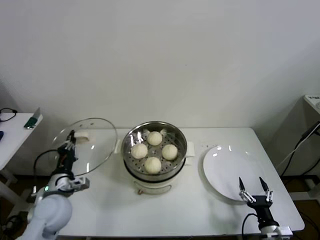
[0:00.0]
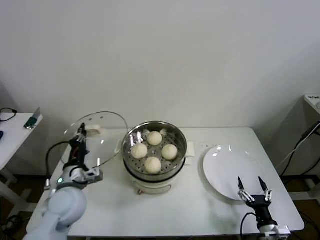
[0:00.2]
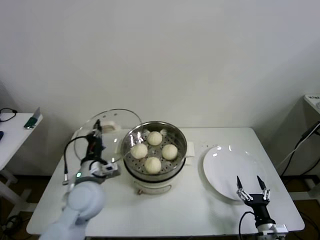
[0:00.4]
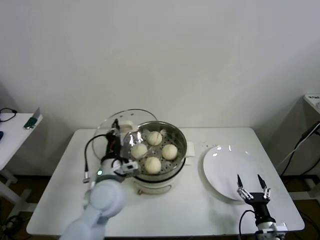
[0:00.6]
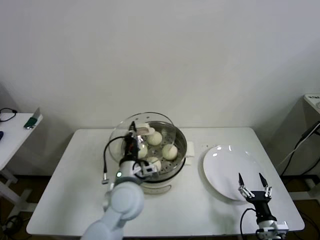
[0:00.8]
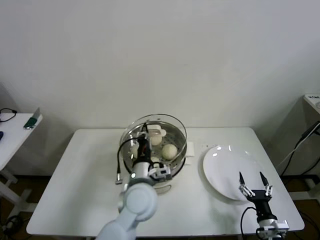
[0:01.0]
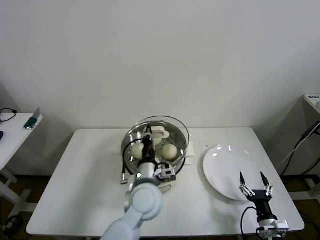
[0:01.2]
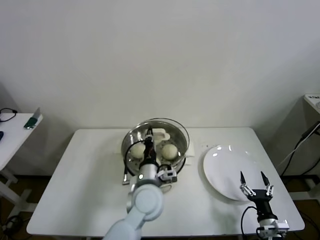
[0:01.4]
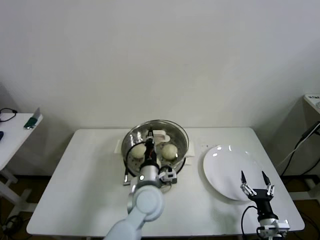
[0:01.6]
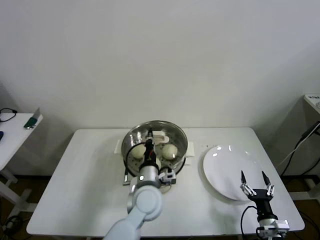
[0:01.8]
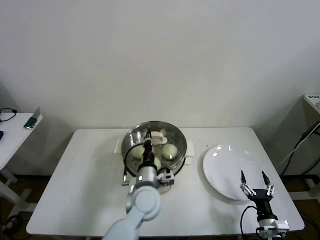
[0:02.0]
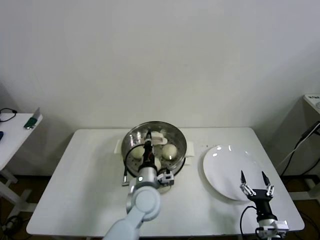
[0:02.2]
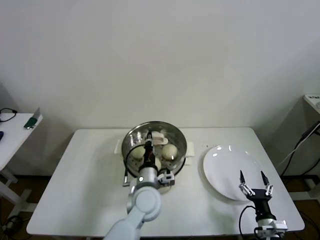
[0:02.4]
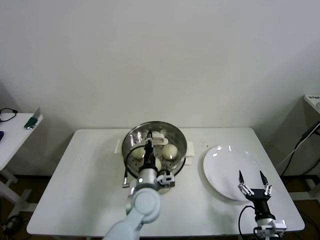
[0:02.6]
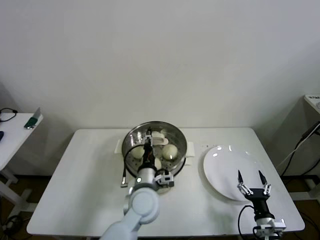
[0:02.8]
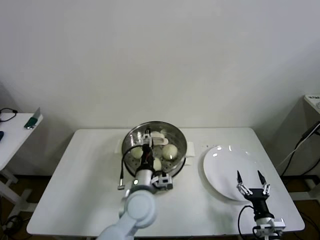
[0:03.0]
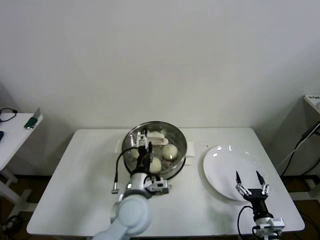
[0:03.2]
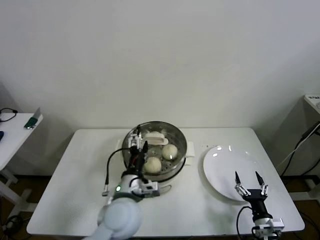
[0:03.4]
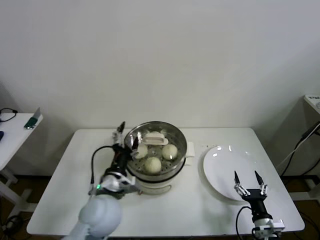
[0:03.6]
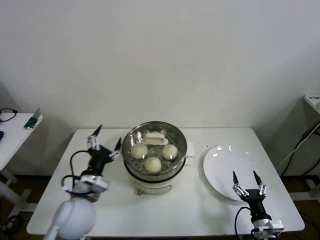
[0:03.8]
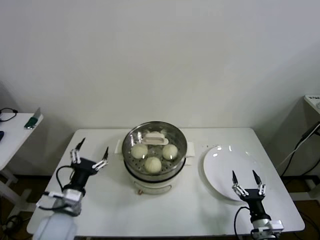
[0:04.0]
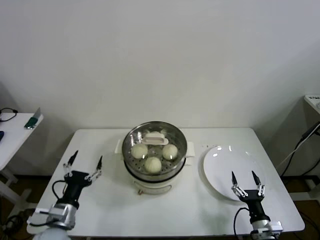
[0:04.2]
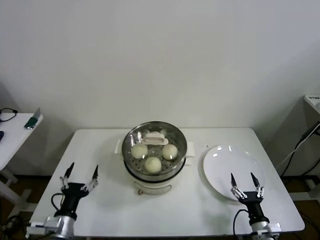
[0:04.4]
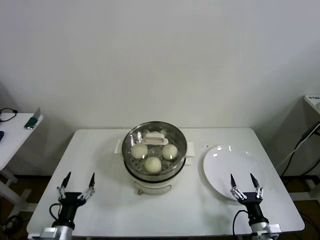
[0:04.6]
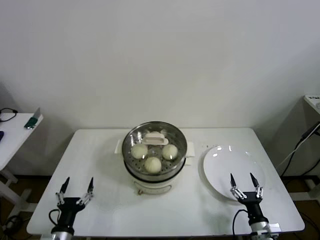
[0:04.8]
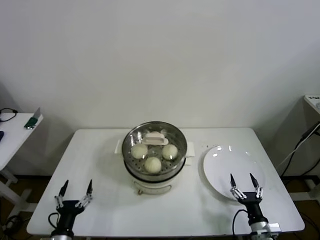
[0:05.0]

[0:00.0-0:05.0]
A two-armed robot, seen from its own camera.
Step, 0:00.0 to 0:02.4: Place the pot lid on the steamer with left gripper.
0:00.0 to 0:01.6: The left gripper shifts roughly 30 cm to the right.
0:01.6 to 0:03.4: The left gripper goes about 5 cm to the left, and opens up.
0:03.4 to 0:05.0: The left gripper is displaced to the left, downward and backward by some 30 cm.

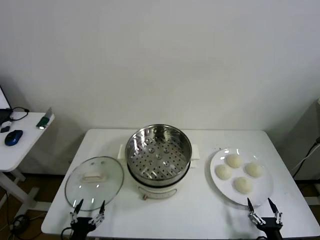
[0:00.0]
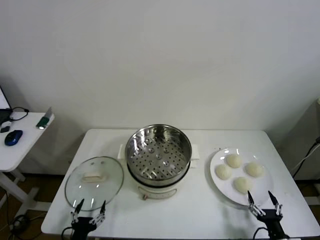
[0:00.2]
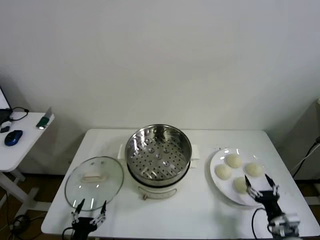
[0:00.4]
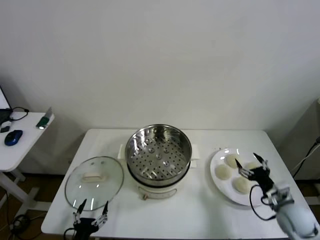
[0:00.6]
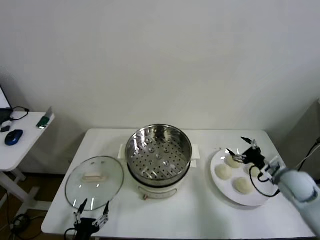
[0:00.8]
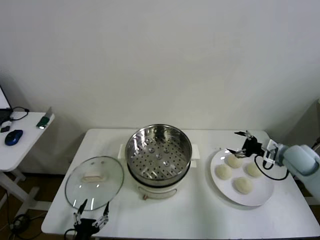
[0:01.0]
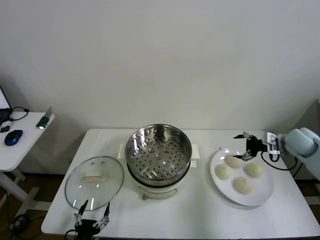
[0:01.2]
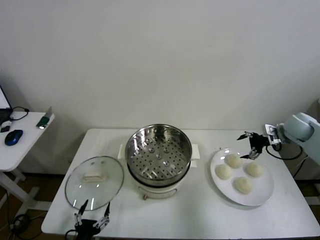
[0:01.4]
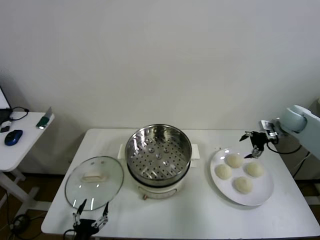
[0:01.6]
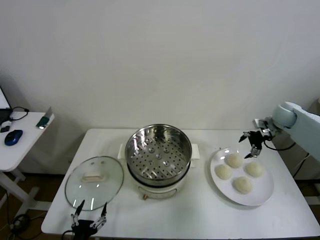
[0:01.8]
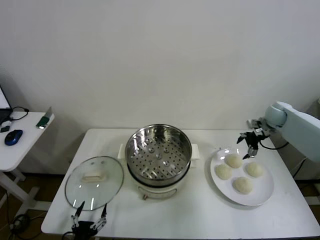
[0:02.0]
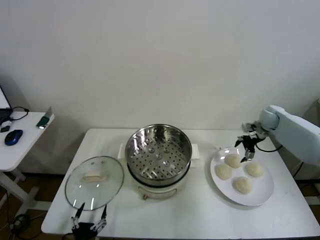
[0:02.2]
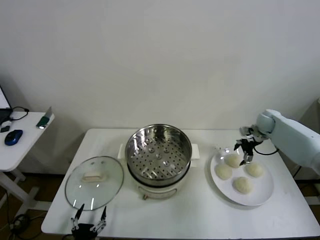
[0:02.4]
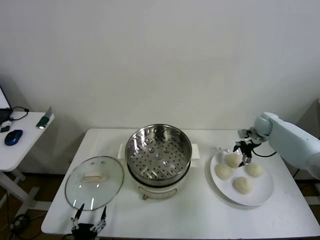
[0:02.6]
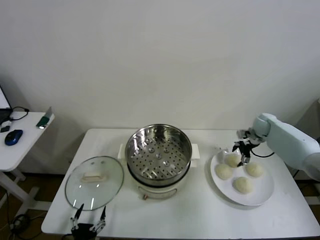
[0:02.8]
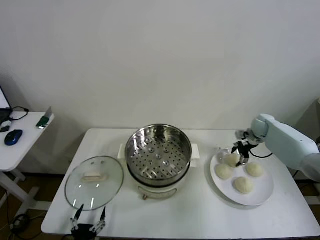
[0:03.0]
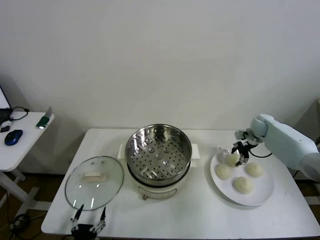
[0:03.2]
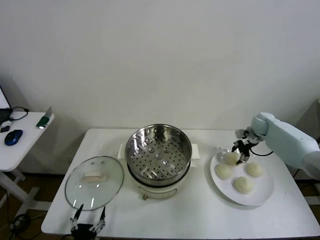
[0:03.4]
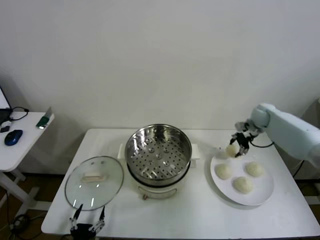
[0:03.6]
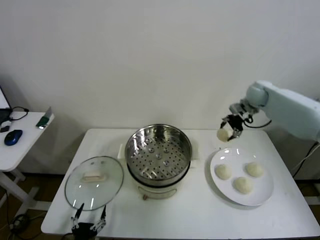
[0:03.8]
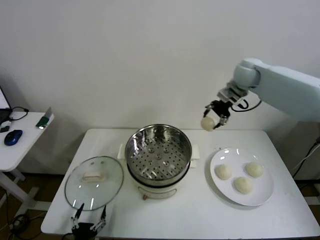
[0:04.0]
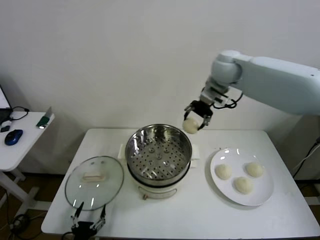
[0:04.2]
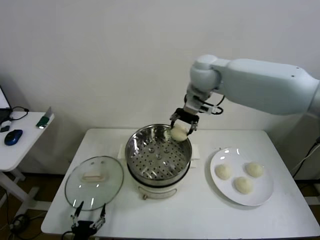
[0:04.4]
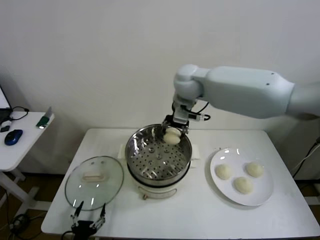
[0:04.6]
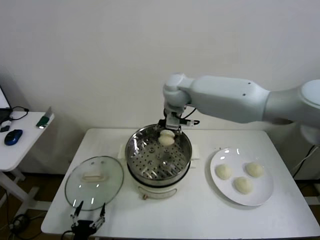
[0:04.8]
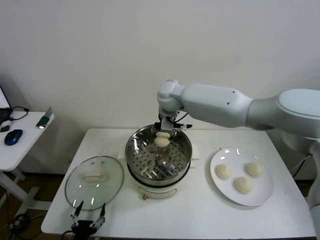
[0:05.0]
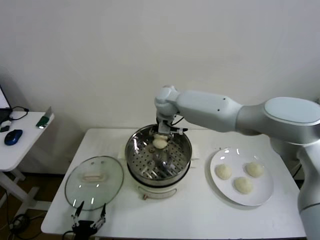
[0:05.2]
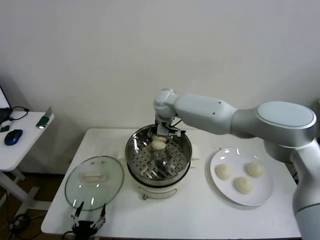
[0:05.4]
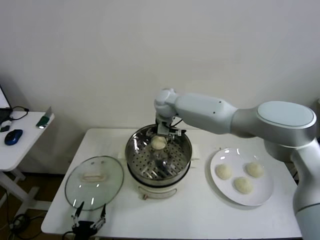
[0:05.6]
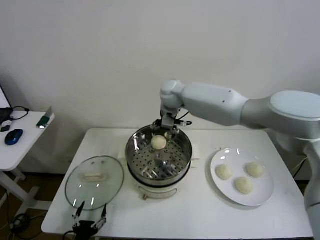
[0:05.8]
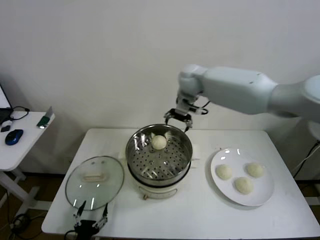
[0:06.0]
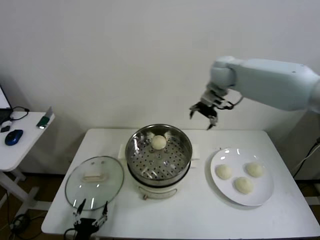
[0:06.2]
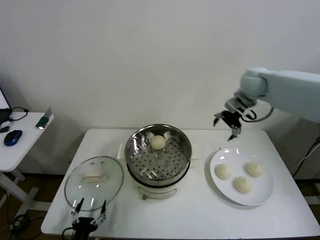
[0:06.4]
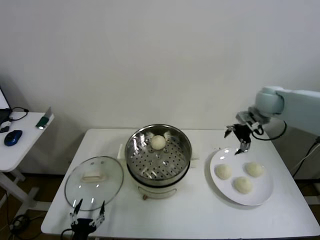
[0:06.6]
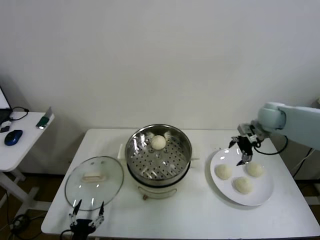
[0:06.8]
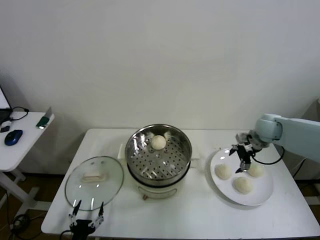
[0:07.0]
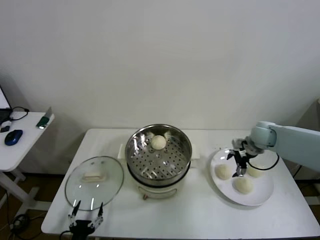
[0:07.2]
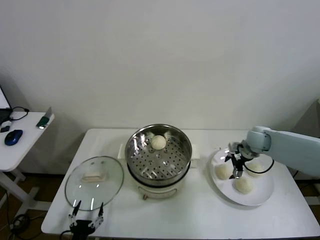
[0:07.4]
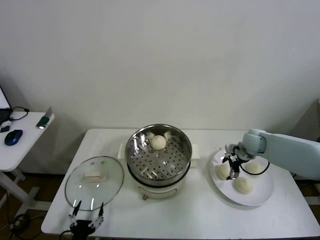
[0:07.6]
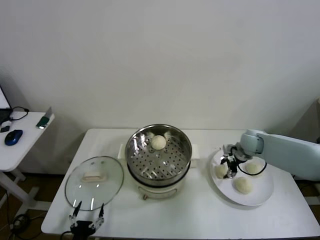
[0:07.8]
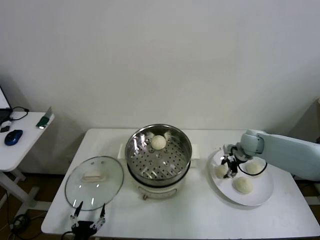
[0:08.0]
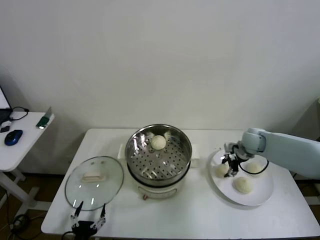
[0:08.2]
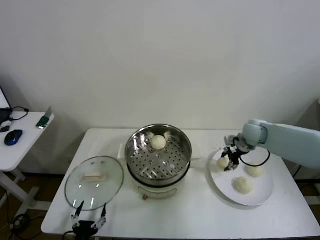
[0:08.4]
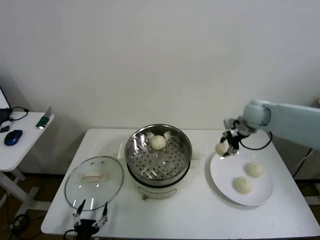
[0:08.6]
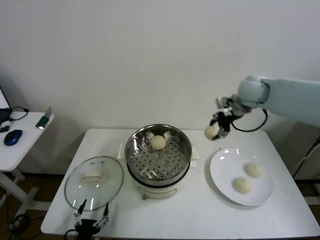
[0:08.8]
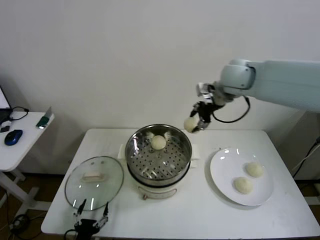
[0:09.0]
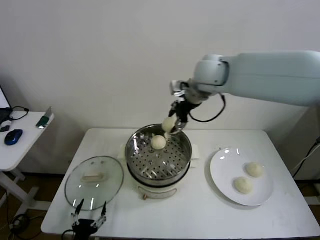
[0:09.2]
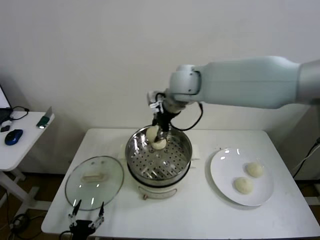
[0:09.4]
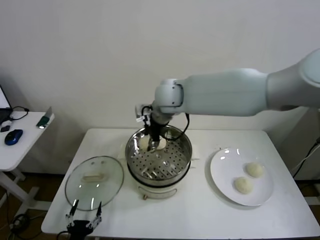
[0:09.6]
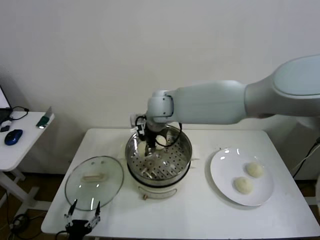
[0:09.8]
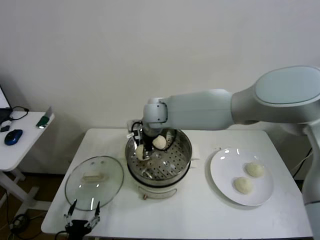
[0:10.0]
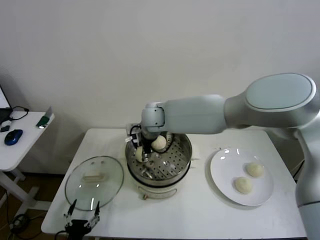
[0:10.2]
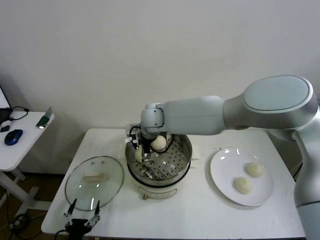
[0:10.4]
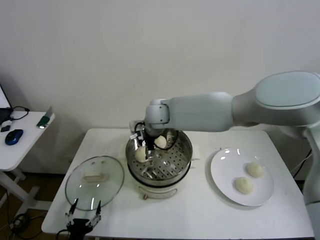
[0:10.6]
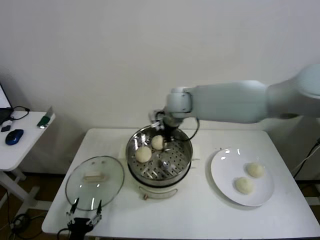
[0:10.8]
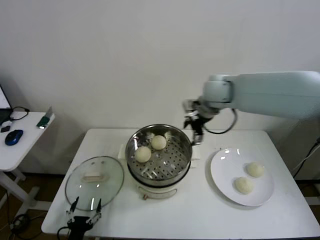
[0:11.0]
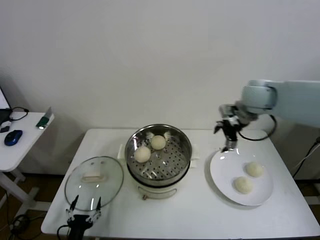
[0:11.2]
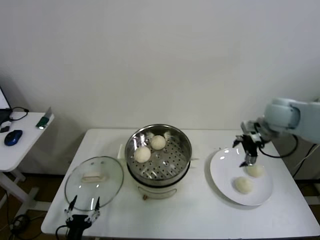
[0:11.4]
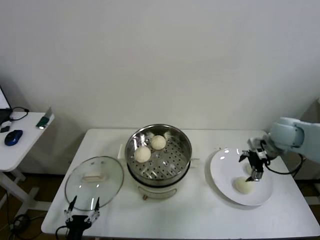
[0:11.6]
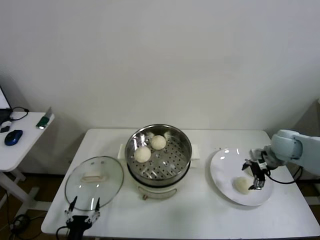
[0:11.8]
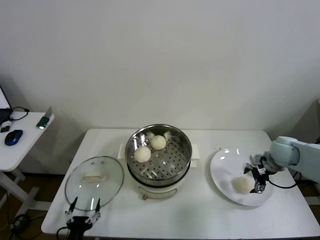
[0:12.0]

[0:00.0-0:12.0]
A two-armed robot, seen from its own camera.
Step, 0:00.0 to 0:03.0: Grasp the baozi in the plate with right gripper.
Step, 0:03.2 to 0:05.6: Place the baozi on the steamer with right gripper.
Step, 0:05.8 to 0:07.6: Grasp the baozi in the plate with right gripper.
Step, 0:08.0 to 0:10.6: Place the baozi on the steamer with right gripper.
0:01.6 to 0:03.0: The right gripper heads downward, covering about 10 cm, and closes.
0:03.0 to 0:04.4: The right gripper travels to the left and upward by approximately 40 cm.
0:04.4 to 0:06.0: The right gripper shifts about 5 cm forward, and opens.
0:06.0 to 0:07.6: The right gripper goes approximately 30 cm downward and to the right.
0:07.6 to 0:09.0: The right gripper travels upward and to the left by approximately 35 cm, and closes its fingers.
0:09.0 to 0:10.4: The right gripper moves to the left and downward, roughly 25 cm, and opens its fingers.
0:10.4 to 0:12.0: The right gripper travels to the right by some 40 cm.

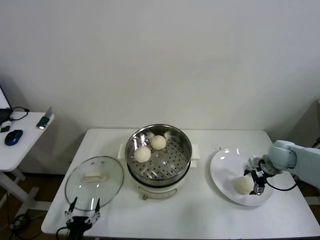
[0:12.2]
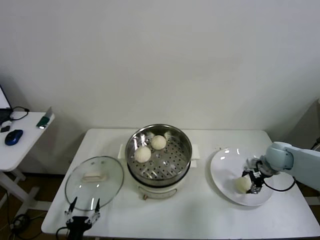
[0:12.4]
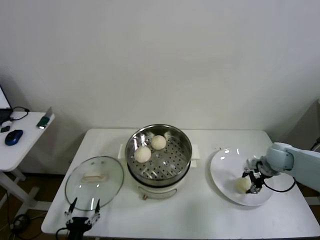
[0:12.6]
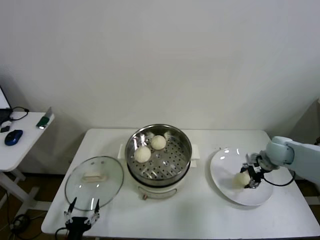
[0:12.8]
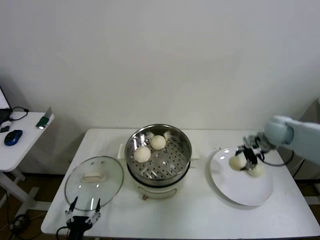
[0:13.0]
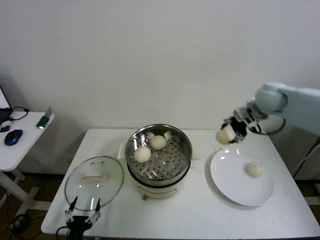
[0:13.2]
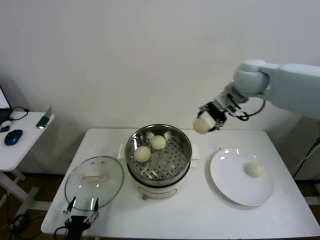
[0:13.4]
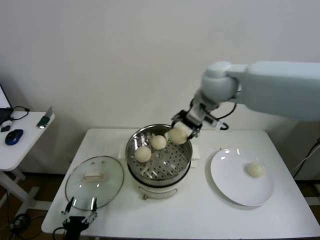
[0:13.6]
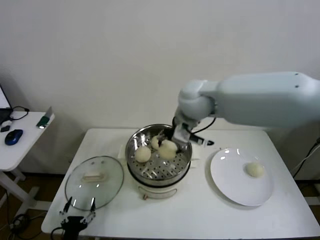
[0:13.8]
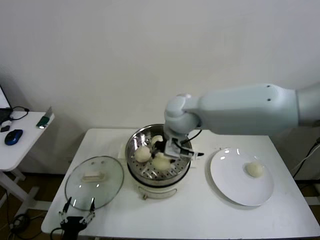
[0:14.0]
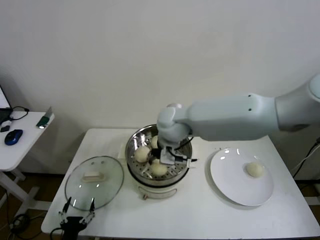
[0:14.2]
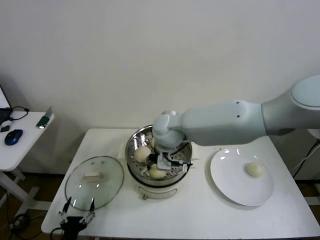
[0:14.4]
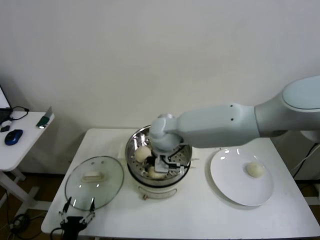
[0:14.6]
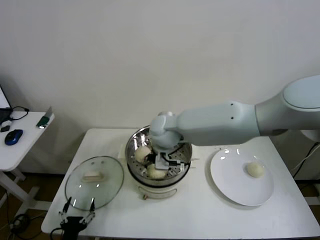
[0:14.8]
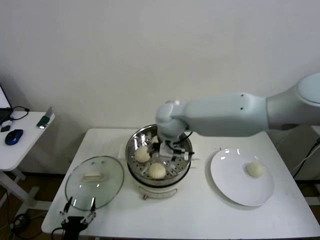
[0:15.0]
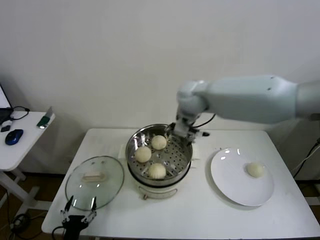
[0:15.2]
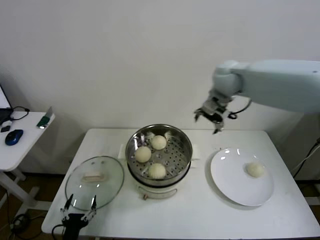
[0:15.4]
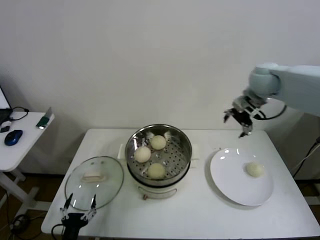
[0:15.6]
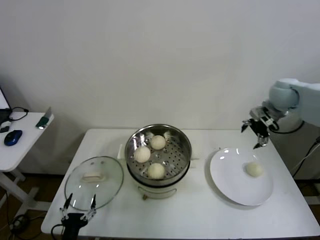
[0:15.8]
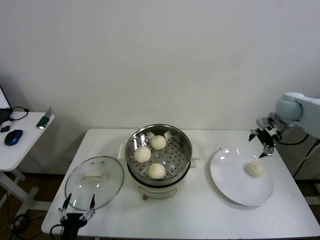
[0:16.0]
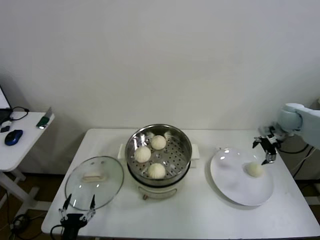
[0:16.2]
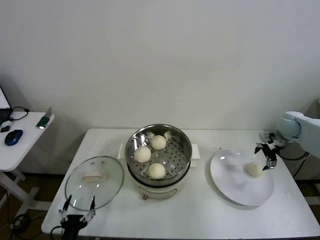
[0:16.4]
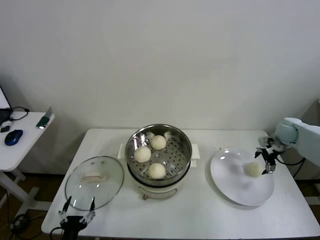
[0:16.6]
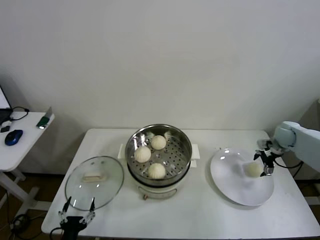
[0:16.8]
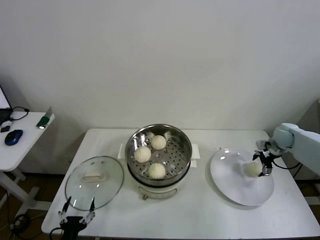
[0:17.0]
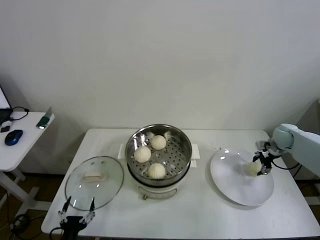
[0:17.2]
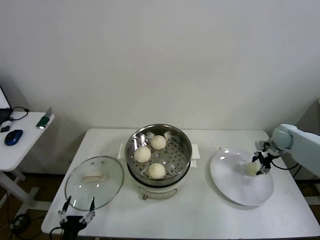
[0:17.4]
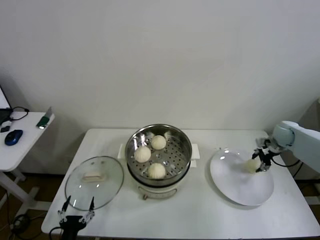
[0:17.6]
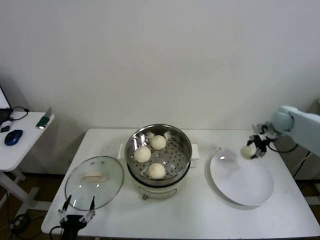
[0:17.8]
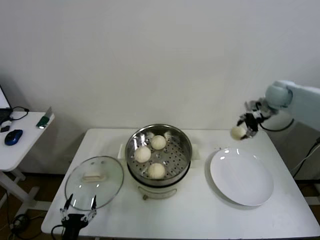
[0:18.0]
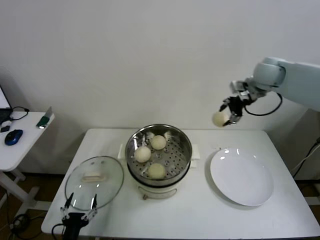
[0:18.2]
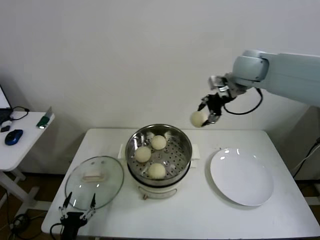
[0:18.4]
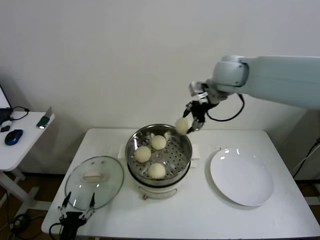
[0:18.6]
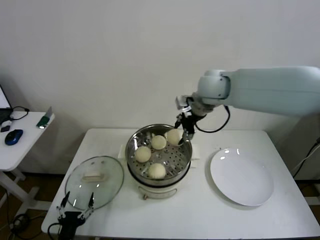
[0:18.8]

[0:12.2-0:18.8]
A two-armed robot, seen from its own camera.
Step, 0:12.8 to 0:14.8: Place the baozi on the steamer with right gripper.
Step, 0:15.0 to 0:17.2: Grasp the baozi in the plate with right gripper.
0:12.2 to 0:13.8: The right gripper moves to the left and upward, some 40 cm, and closes its fingers.
0:13.8 to 0:15.4: The right gripper shifts roughly 15 cm to the right and forward, and opens up.
0:15.4 to 0:17.2: The right gripper travels to the right and downward by about 35 cm, and closes.
0:17.2 to 0:18.8: The right gripper moves to the left and upward, about 40 cm.
